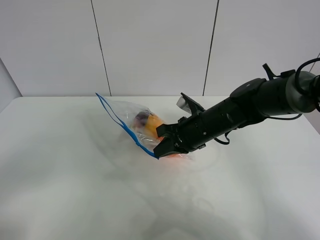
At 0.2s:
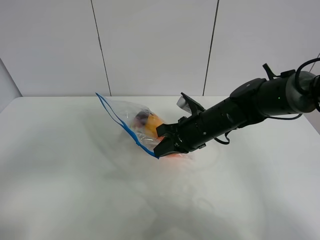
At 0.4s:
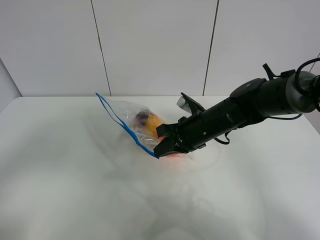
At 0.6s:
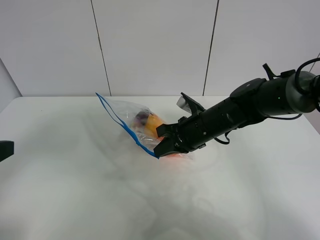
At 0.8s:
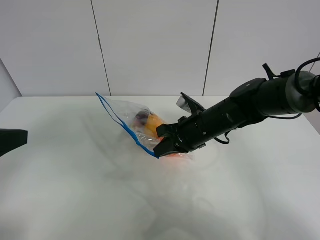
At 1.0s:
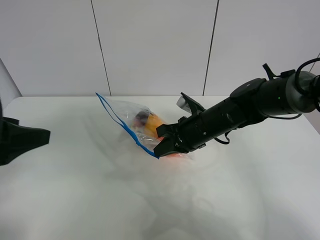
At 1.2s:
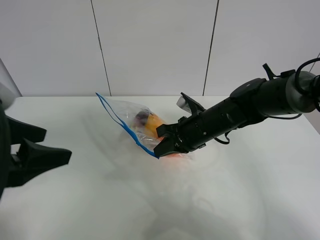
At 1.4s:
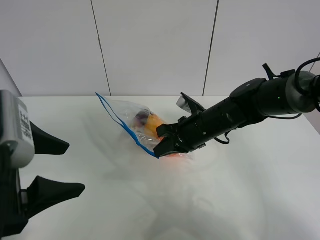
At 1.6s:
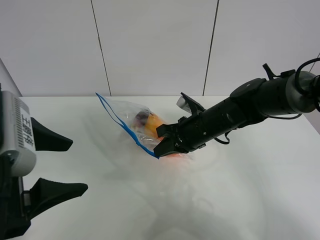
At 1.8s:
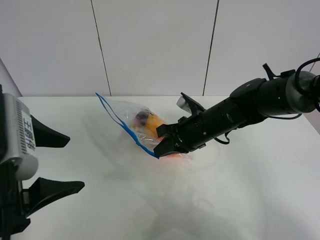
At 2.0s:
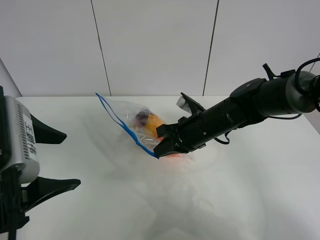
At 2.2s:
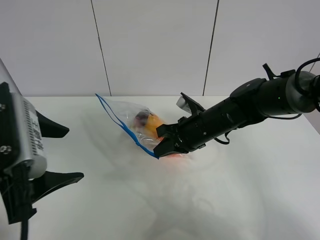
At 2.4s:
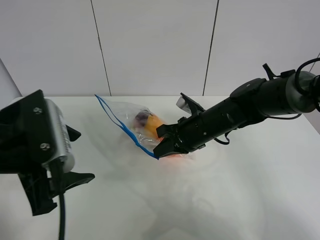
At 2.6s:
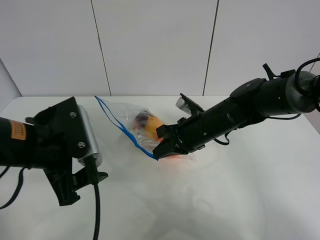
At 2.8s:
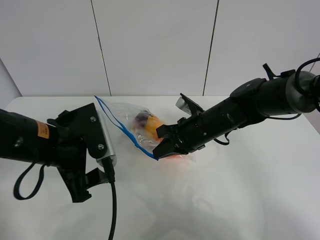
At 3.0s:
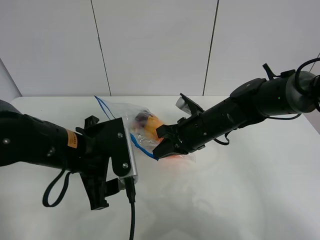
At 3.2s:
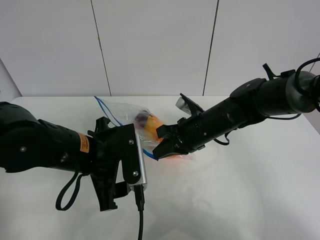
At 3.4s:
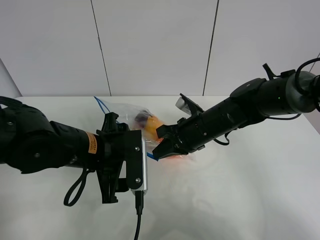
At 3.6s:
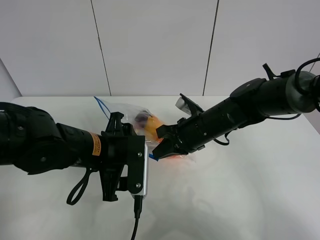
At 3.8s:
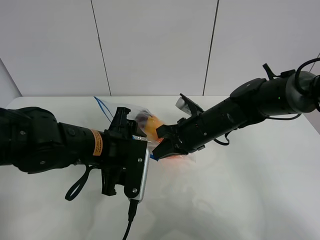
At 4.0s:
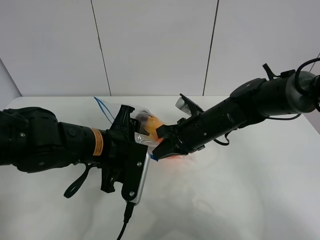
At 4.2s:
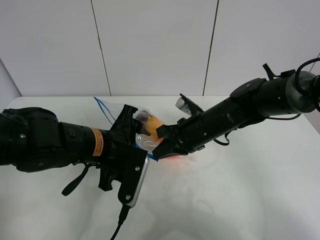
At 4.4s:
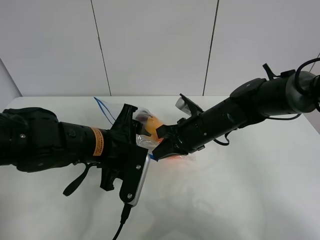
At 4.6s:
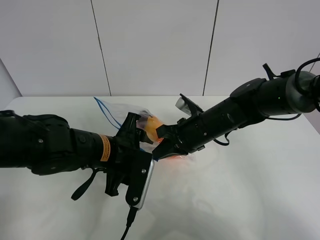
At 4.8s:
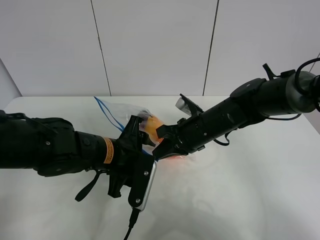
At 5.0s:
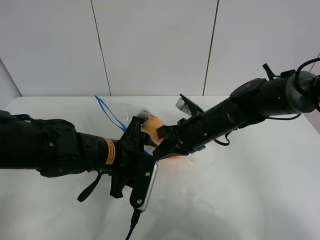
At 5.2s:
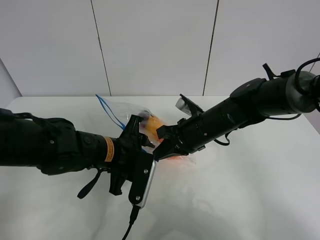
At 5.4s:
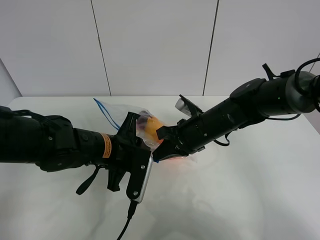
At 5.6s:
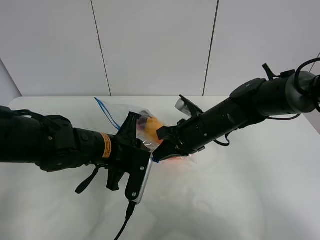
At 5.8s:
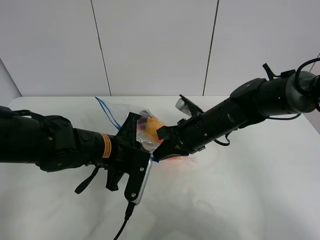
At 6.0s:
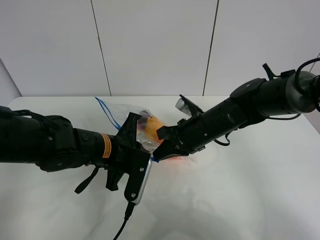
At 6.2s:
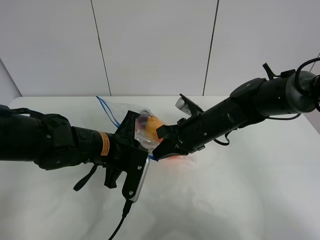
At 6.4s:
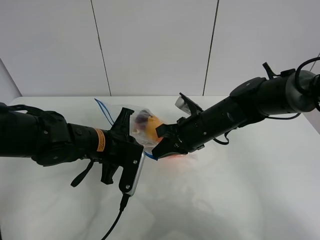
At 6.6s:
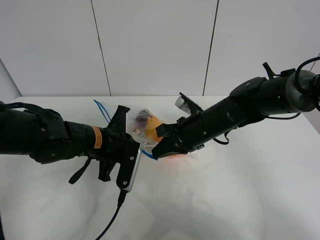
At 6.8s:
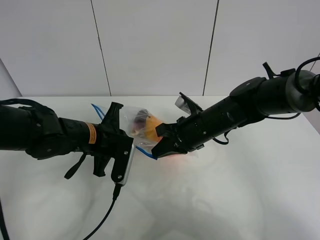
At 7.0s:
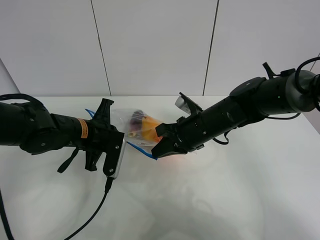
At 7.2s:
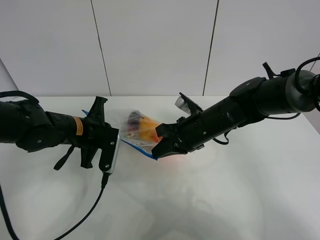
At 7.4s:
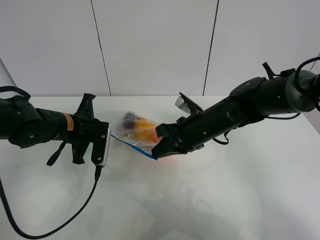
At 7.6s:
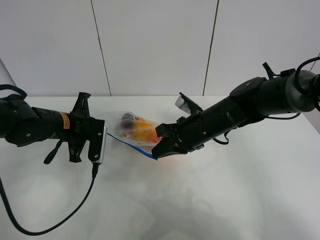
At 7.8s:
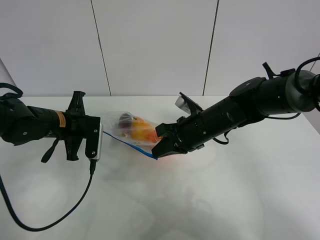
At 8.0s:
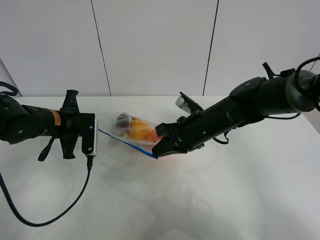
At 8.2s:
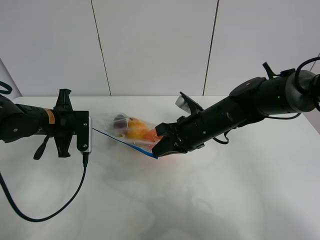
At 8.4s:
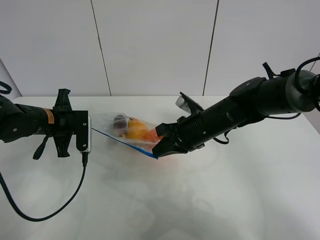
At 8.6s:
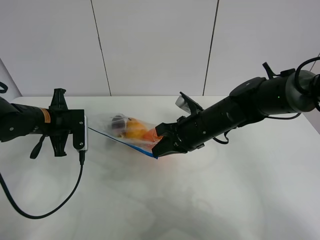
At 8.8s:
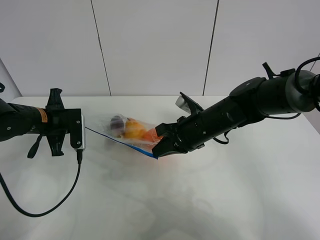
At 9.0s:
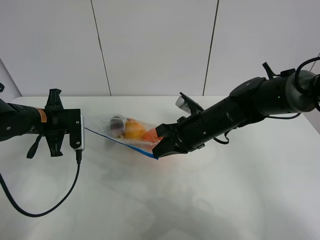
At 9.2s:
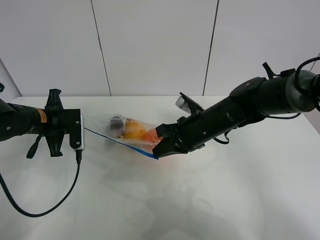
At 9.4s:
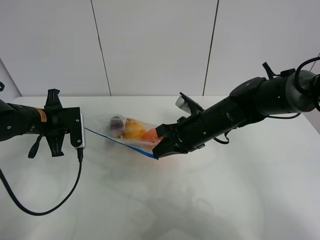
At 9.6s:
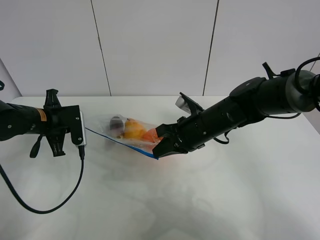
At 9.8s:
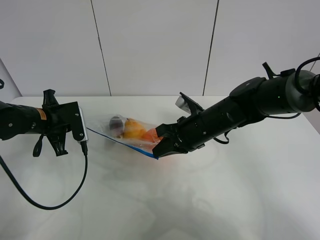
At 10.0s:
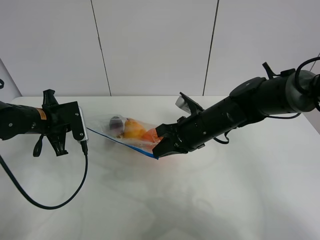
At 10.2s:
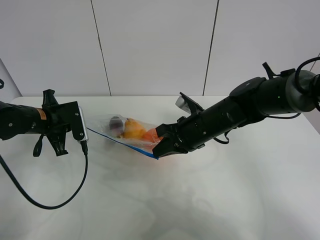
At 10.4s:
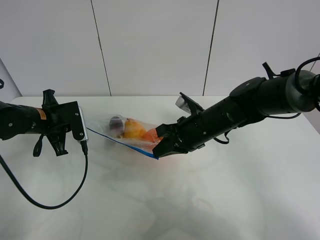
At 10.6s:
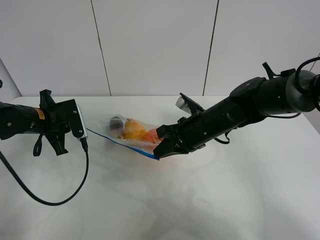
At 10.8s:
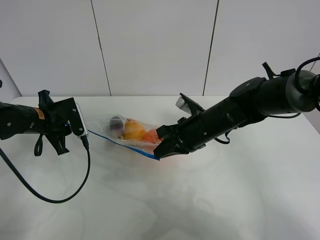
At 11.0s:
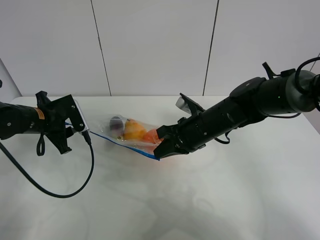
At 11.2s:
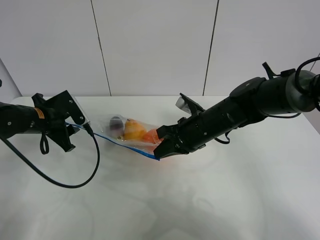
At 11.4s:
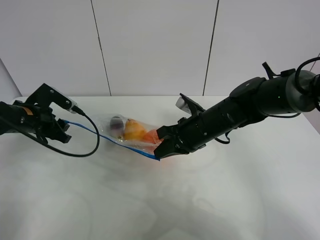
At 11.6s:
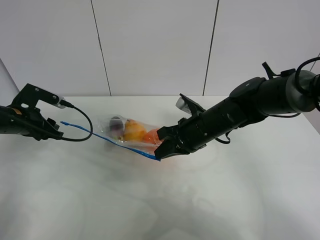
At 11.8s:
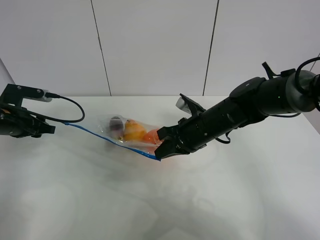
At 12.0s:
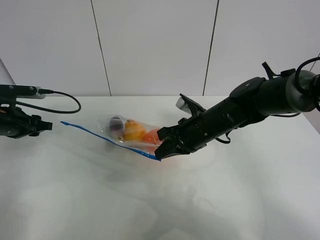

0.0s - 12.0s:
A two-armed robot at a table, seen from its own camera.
Step, 0.0s - 11.4s: Pull the fruit bag with left gripper.
0.0s - 1.6s: The left gripper is displaced forward and to the right by roughly 15 cm.
1.6s - 3.0s: The left gripper shifts some 15 cm downward, forward and to the right.
4.4s - 6.0s: The left gripper closes its fingers.
6.0s - 7.6s: The left gripper moves to the left and forward, roughly 10 cm.
7.6s - 9.0s: The left gripper goes about 5 cm to the left.
9.0s - 10.4s: There are only small adjustments of the grippers.
10.4s - 12.0s: The left gripper goes some 10 cm to the left, and opens its fingers.

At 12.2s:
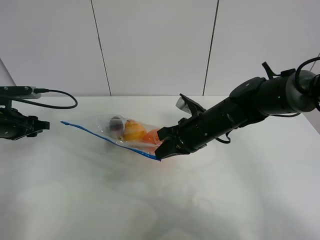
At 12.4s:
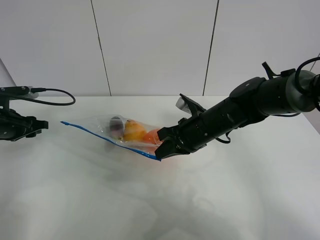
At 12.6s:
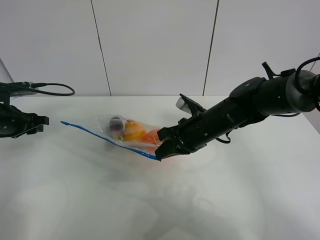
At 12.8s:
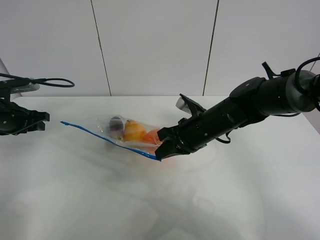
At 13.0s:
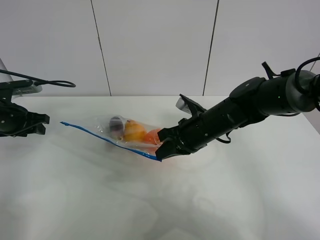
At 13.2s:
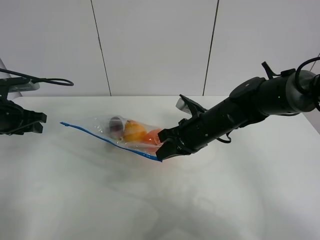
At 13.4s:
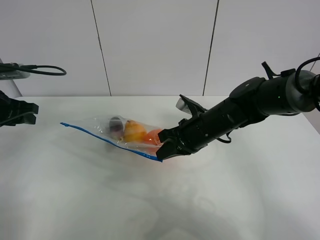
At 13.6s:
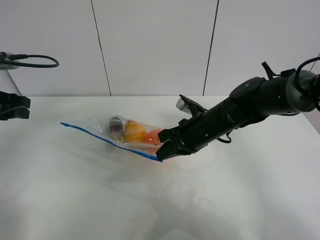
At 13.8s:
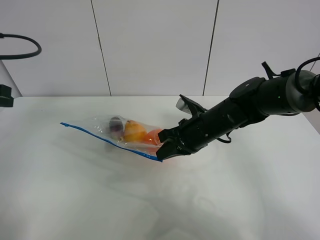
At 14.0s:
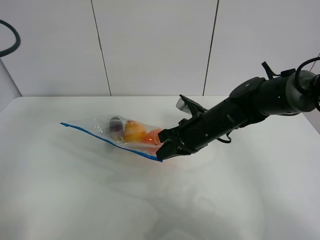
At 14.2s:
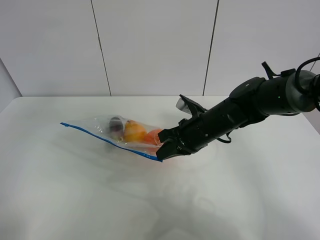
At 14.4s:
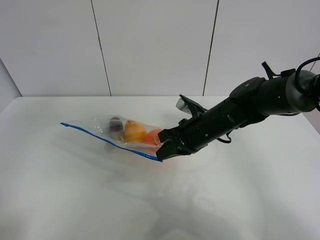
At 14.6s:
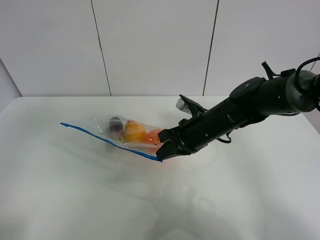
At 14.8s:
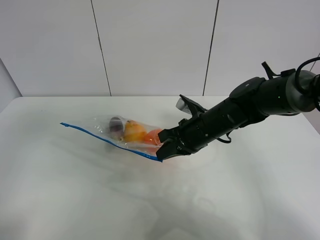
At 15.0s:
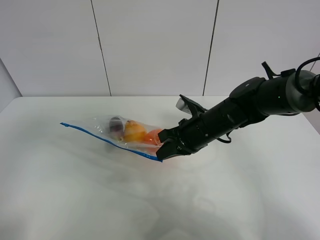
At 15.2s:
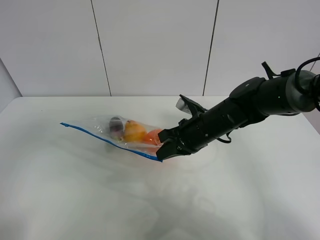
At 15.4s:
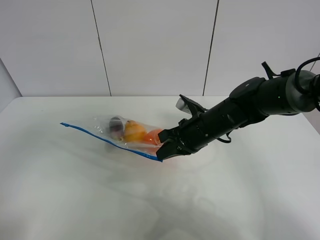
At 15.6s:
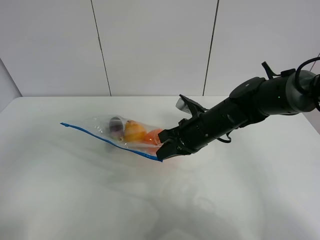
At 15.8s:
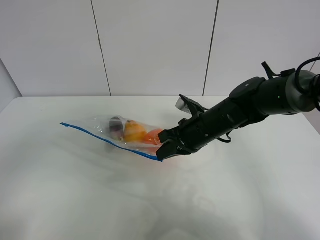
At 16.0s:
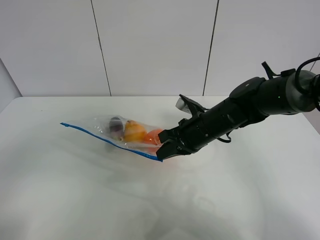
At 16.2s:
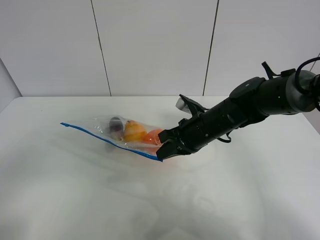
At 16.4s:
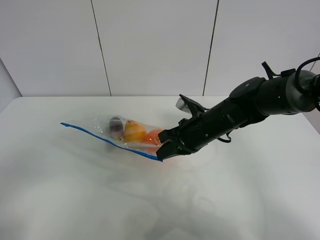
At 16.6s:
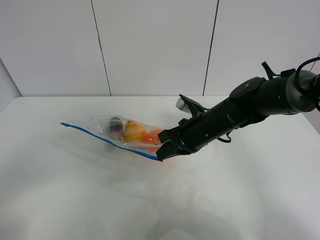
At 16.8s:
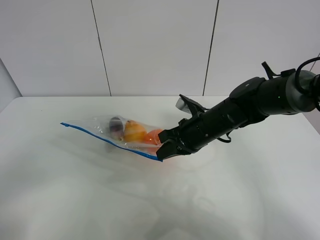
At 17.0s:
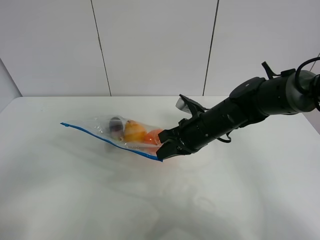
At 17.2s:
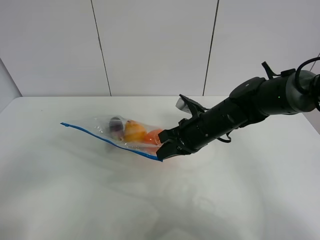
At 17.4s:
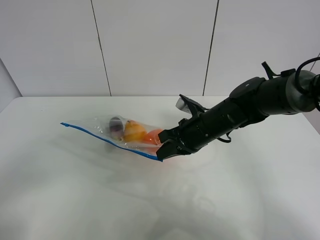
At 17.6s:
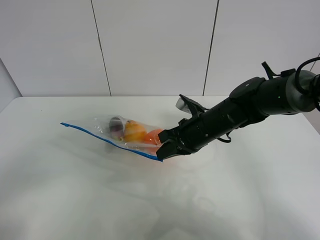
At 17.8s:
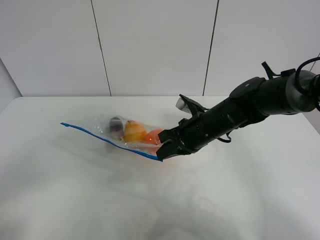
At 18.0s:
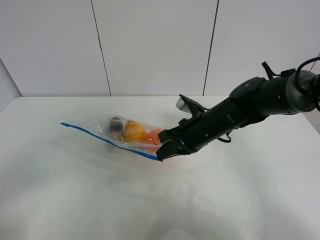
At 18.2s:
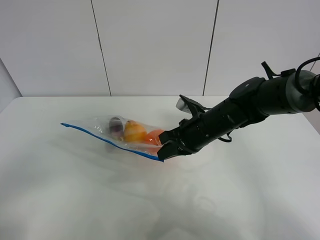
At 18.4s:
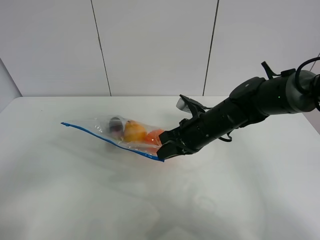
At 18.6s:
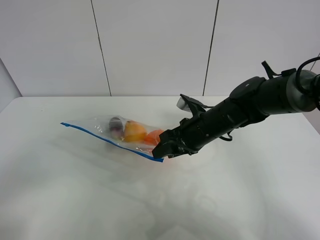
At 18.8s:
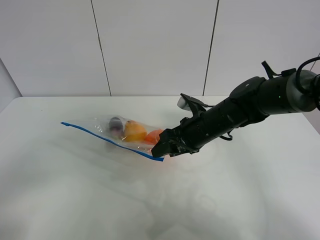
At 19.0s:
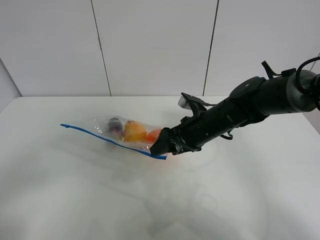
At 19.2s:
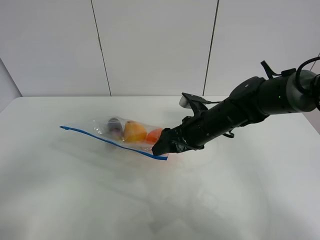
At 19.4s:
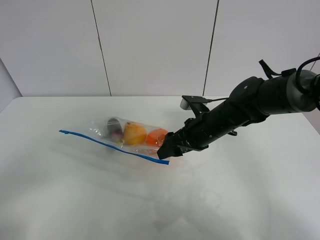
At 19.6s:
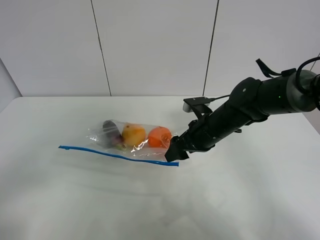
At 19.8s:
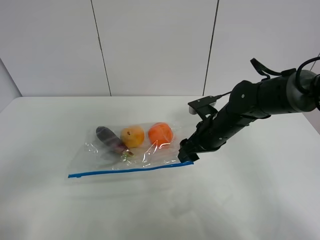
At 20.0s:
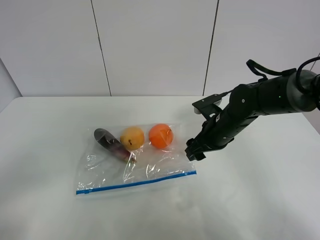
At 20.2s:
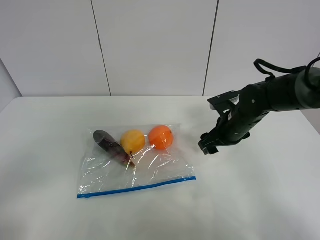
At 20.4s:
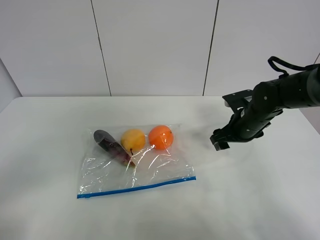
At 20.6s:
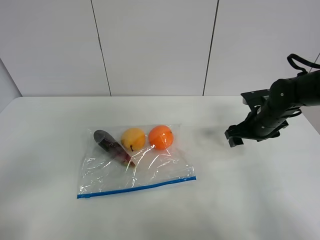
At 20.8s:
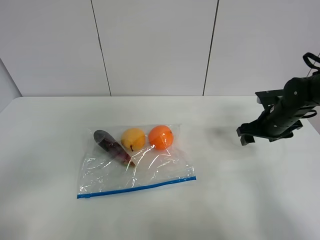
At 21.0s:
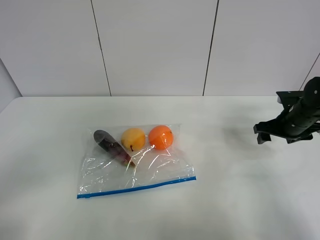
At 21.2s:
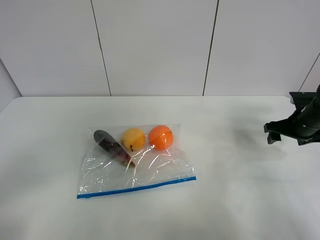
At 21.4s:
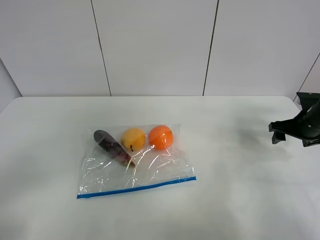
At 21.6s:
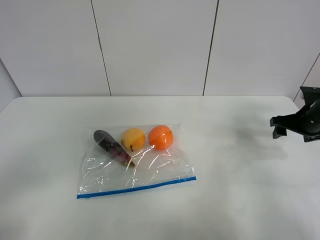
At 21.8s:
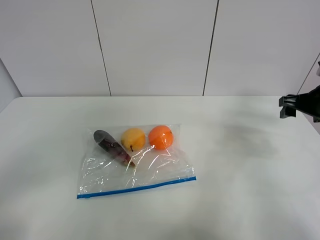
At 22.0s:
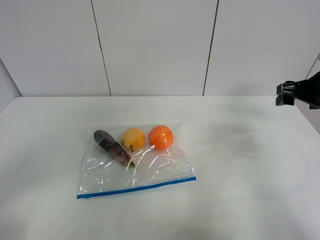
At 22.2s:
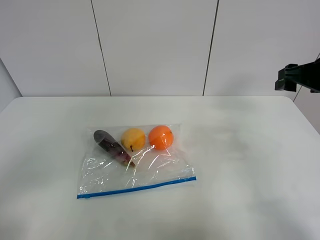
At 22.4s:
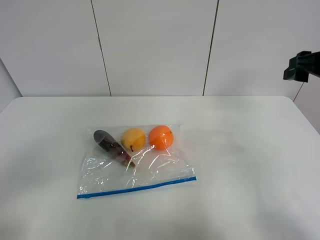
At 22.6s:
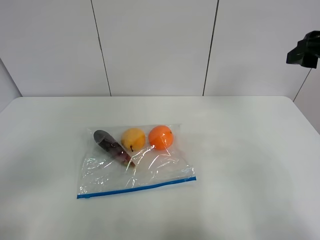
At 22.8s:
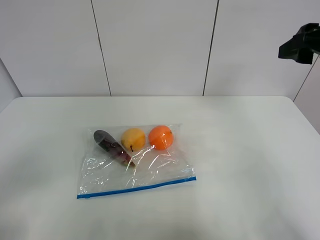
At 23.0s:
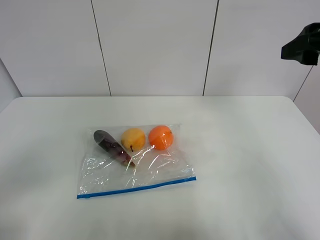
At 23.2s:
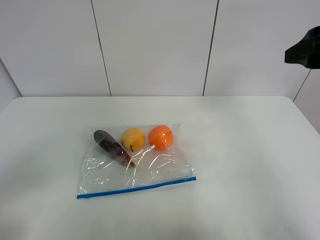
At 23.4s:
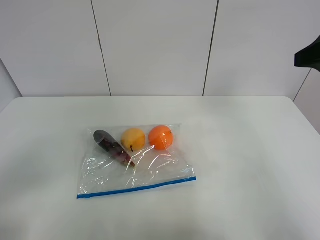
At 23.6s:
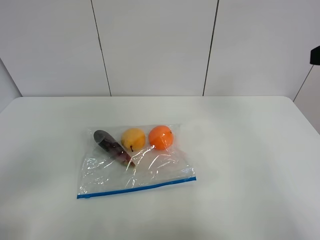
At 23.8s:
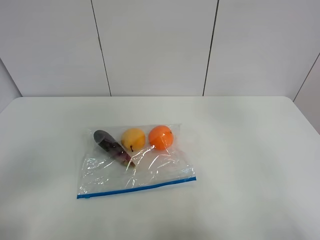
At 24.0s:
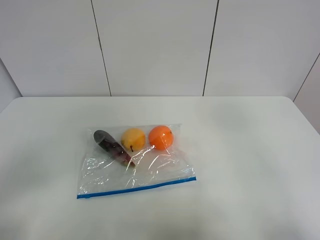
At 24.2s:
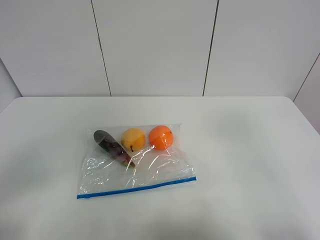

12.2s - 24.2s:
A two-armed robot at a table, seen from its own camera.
Step, 12.2s - 20.2s: Place the fruit bag with right gripper.
12.2s - 13.8s: The left gripper goes roughly 15 cm upward and backward.
13.8s - 15.2s: The left gripper goes roughly 20 cm backward.
16.6s - 18.2s: Both grippers stay about where they are.
18.2s - 19.8s: The right gripper opens its fingers.
19.8s - 21.2s: The right gripper goes roughly 20 cm to the right.
21.2s - 22.6s: The right gripper heads upward and backward, covering approximately 25 cm.
22.6s - 24.2s: The right gripper is displaced backward by roughly 20 cm.
